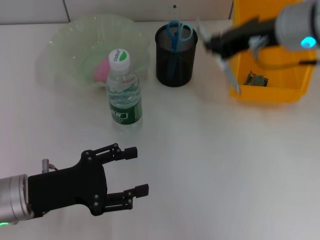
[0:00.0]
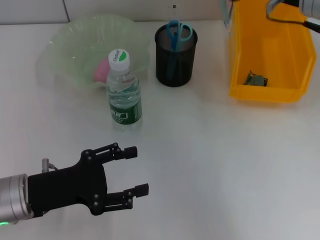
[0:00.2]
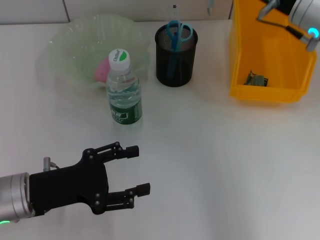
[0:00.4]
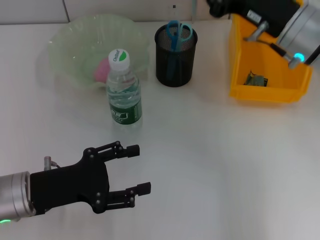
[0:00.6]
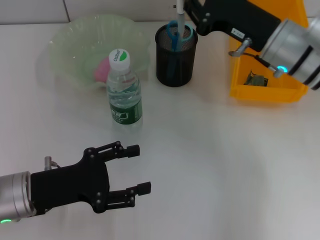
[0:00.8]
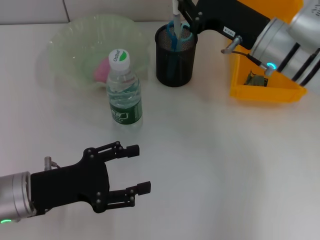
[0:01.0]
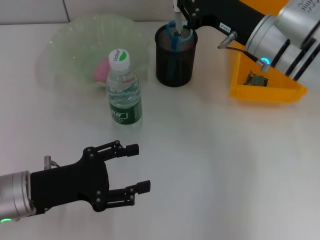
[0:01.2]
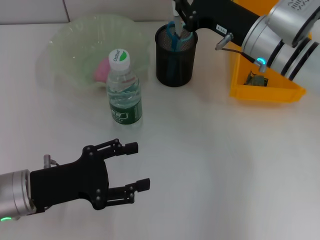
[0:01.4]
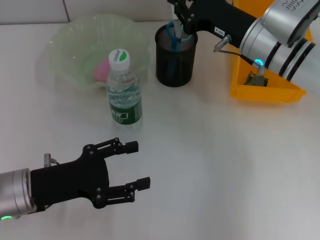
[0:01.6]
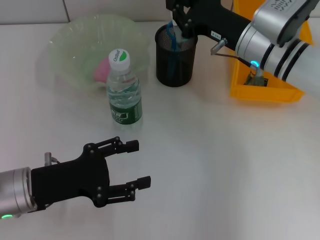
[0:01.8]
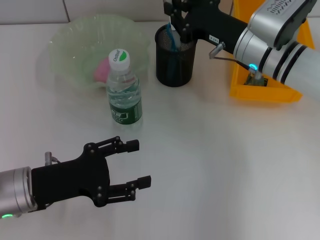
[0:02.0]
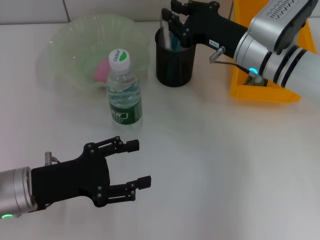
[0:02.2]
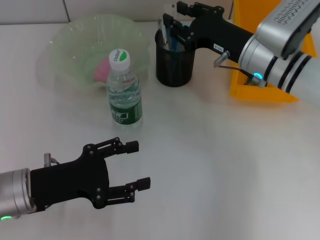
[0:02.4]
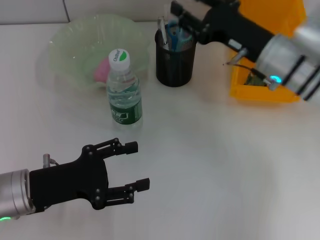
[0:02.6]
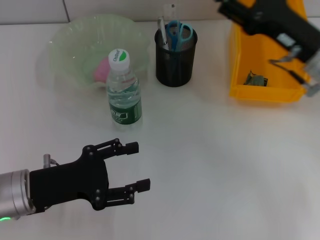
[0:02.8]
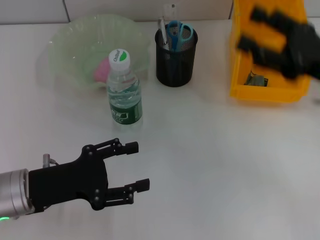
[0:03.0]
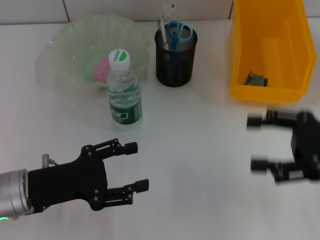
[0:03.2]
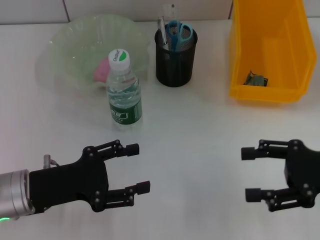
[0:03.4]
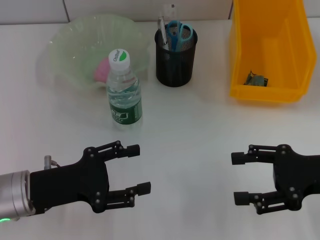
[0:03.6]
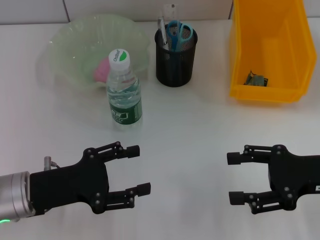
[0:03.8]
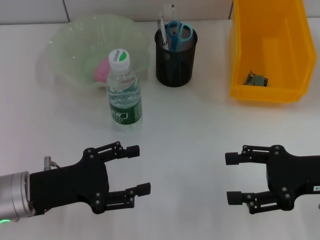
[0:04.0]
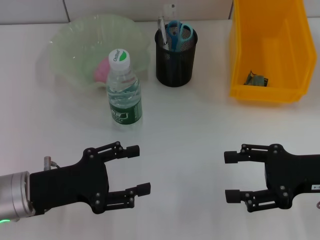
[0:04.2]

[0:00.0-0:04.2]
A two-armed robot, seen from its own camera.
Step, 0:00.0 to 0:02.2: Place the gray spring-action pen into the pen holder with the right hand.
0:00.0 to 0:01.4: The right gripper travels downward by approximately 10 cm.
0:01.4 to 0:02.8: The right gripper shifts roughly 10 cm to the right and backward, and opens up.
0:02.8 to 0:04.2: The right gripper goes some 10 cm backward, and opens.
